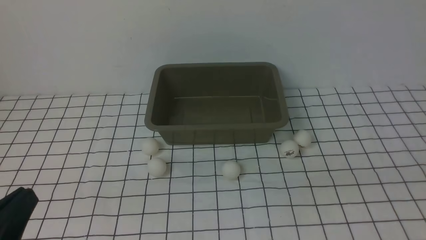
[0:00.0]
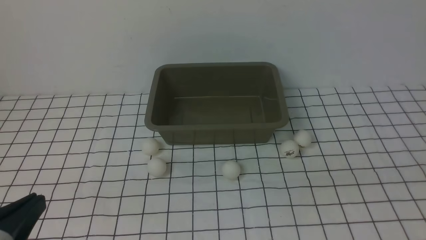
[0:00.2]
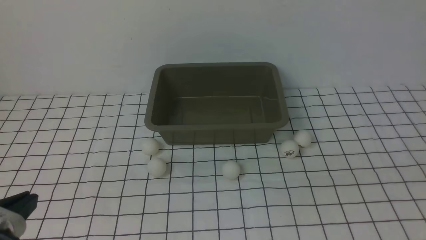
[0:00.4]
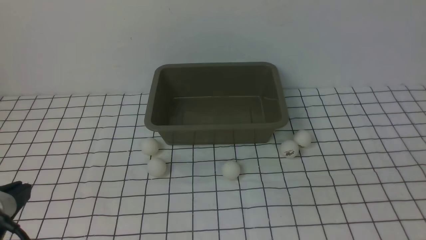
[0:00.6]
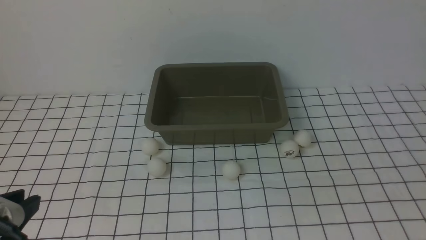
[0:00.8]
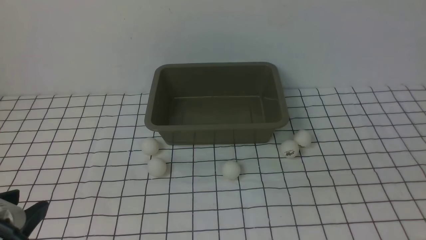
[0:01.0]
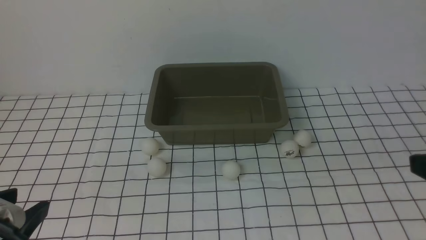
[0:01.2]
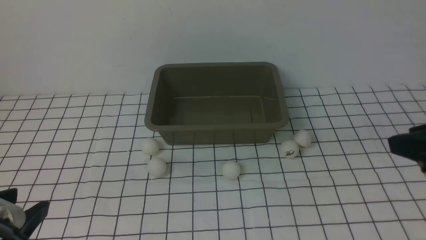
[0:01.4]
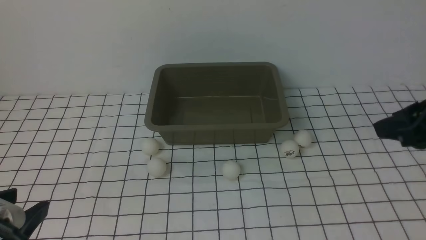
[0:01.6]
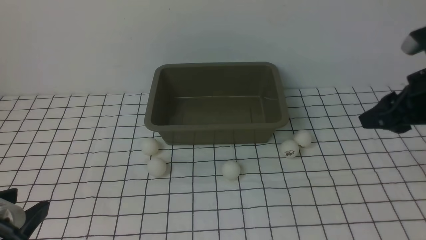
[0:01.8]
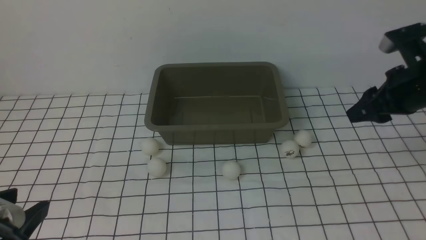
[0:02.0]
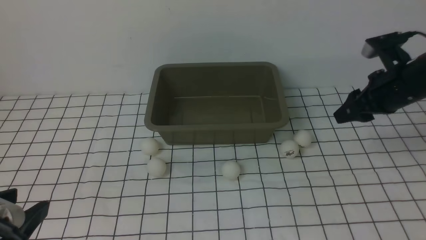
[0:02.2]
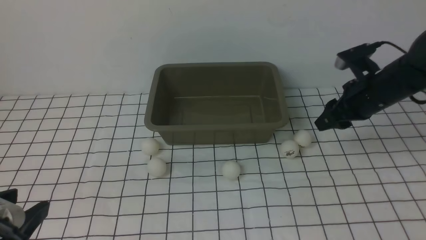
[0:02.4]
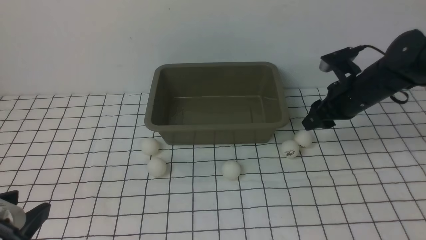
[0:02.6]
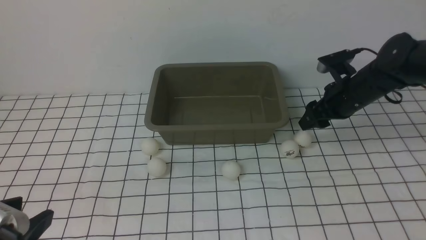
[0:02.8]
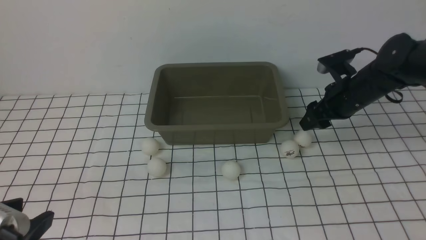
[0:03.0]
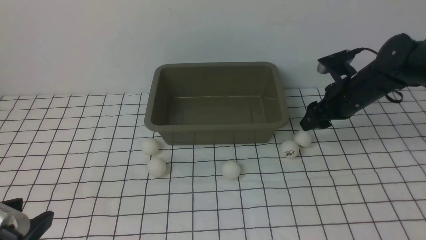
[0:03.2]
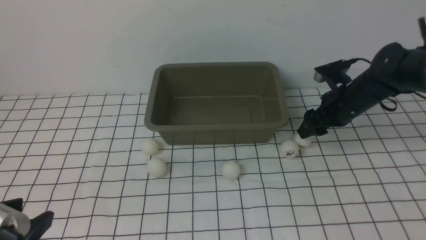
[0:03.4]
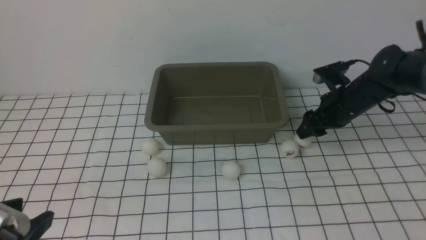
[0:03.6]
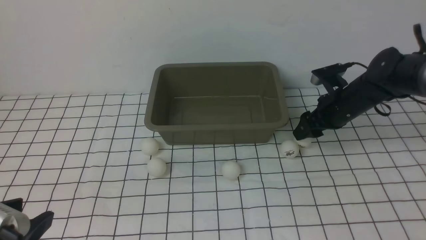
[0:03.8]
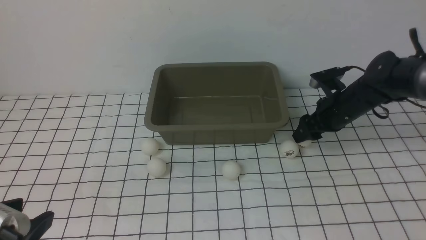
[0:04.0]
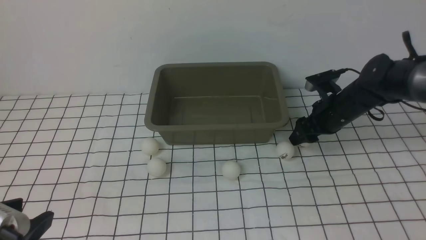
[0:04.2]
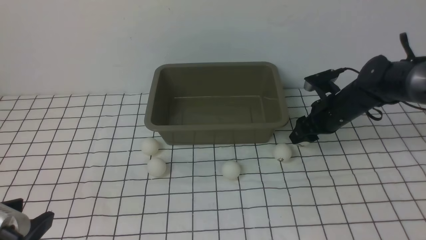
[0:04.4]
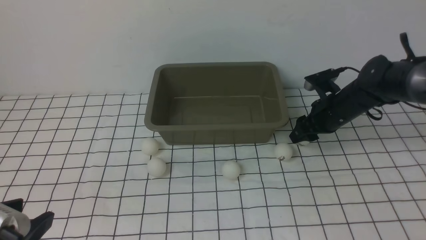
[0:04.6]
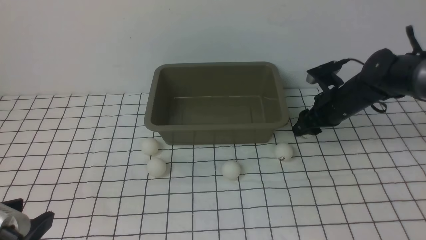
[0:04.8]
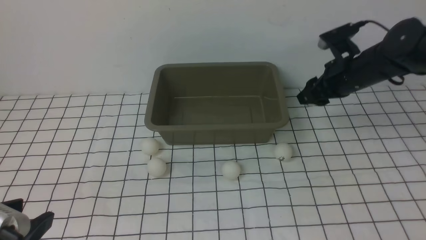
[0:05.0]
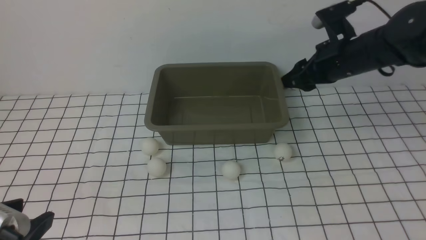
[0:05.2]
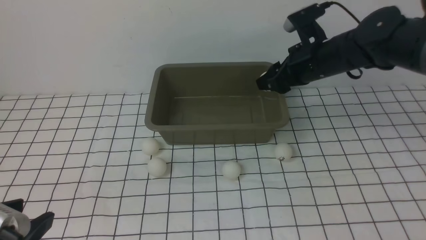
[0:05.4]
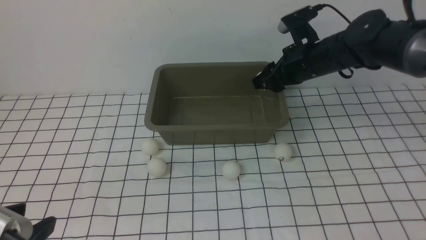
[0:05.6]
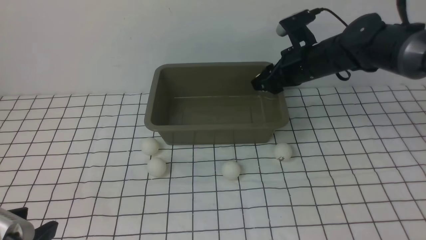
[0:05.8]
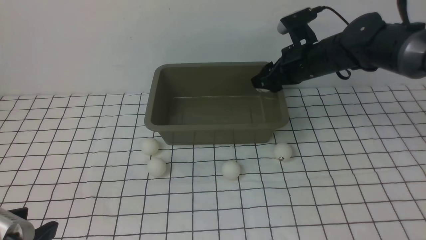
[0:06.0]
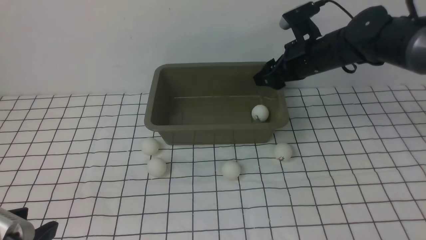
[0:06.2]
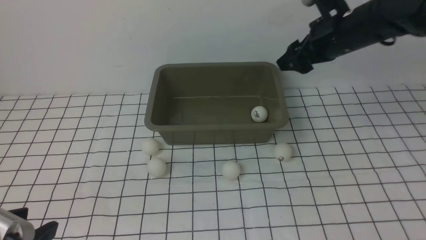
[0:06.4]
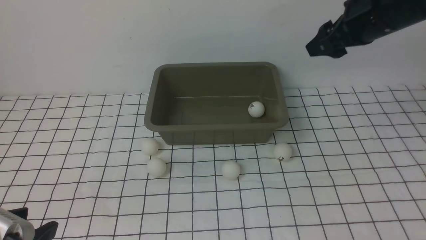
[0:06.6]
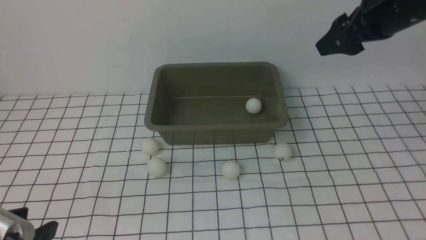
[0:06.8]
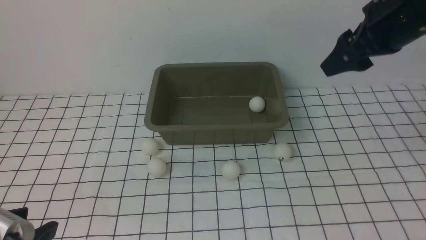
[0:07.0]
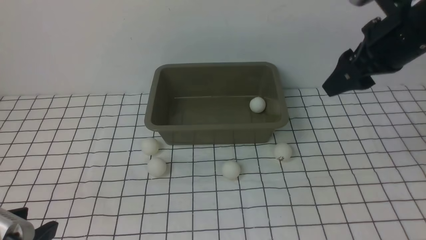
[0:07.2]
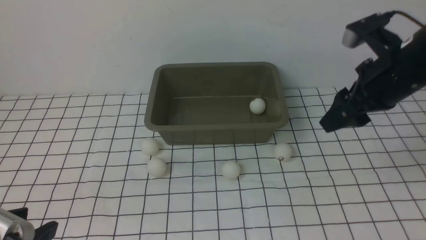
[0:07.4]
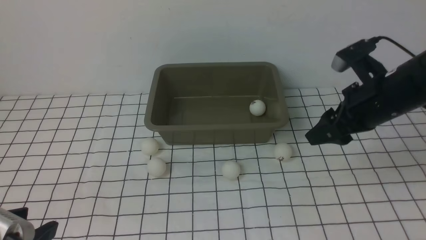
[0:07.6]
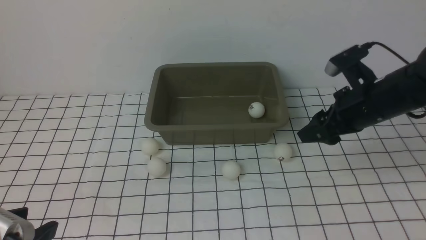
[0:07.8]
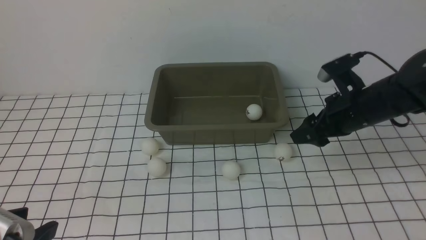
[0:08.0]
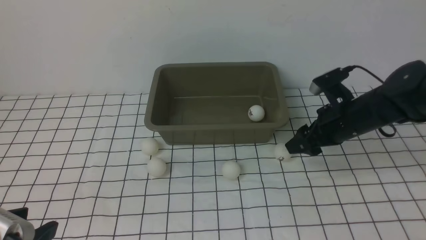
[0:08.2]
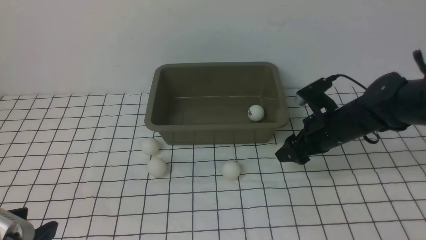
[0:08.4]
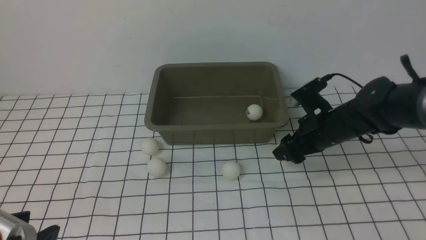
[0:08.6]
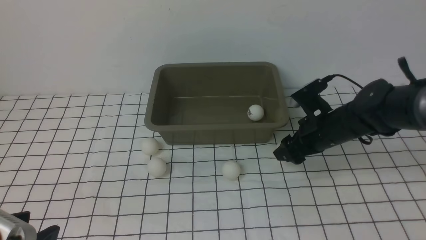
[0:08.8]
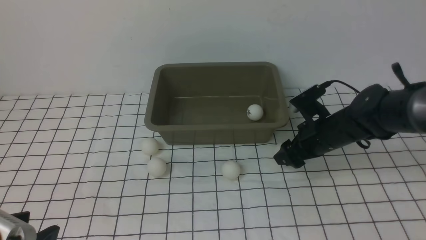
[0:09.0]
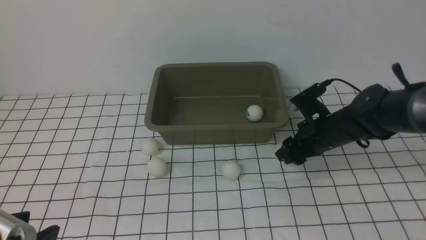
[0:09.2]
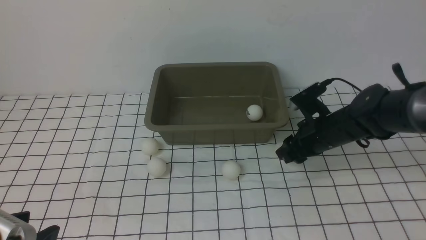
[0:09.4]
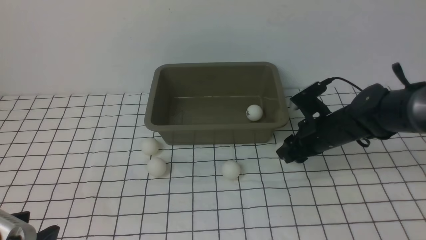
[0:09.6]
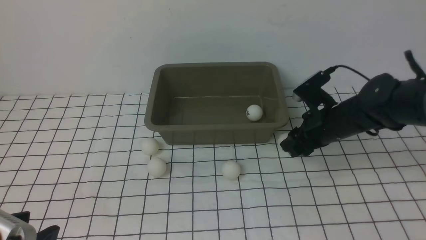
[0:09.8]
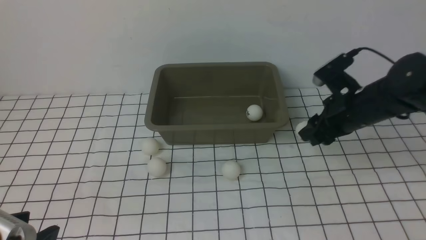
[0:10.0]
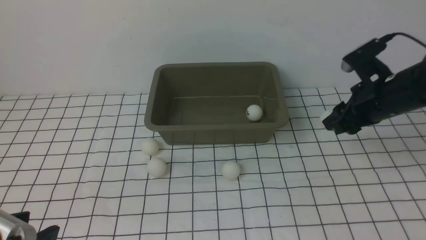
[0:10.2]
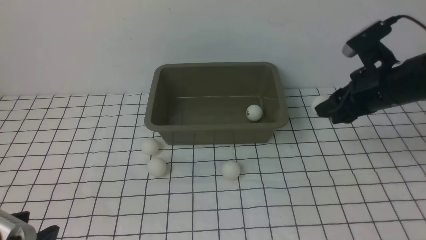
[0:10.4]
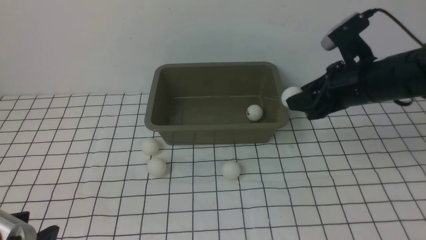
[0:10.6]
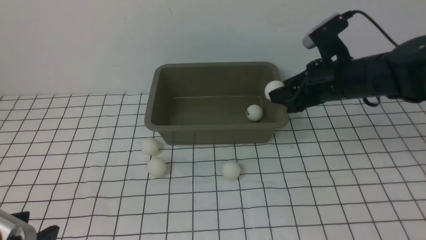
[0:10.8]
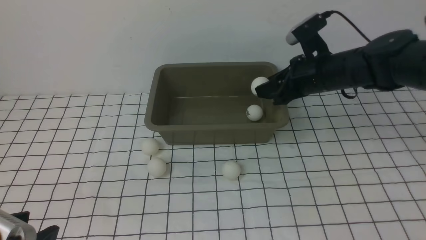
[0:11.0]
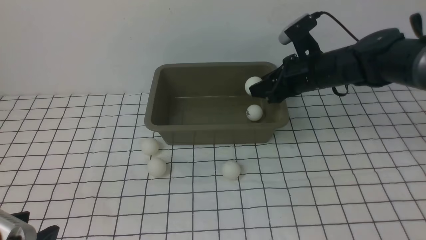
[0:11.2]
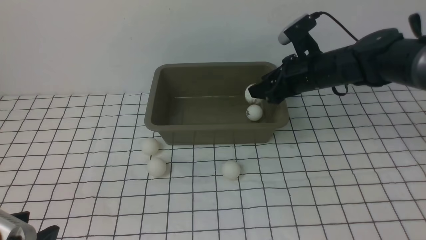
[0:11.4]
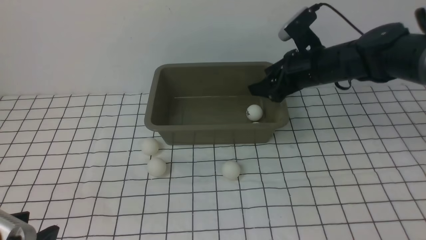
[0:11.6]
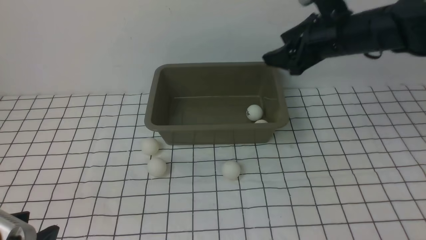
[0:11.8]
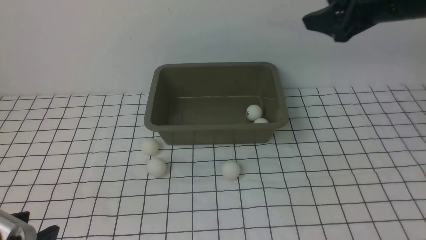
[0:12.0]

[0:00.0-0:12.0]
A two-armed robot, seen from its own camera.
Step, 0:00.0 to 0:04.8: use the right arm to clamp the table tennis ball closest to it.
Step, 0:05.2 to 0:06.2: use the right arm to put the table tennis ball into the box.
Step, 0:06.4 to 0:09.8: use the right arm to clamp the table tennis ball closest to it.
Step, 0:10.2 to 0:11.6: use the right arm to put the table tennis ball into the box.
0:00.0 to 0:01.6: The left gripper opens; the right gripper travels forward by about 30 cm, and opens up.
0:01.6 to 0:03.0: The right gripper moves forward and downward, roughly 20 cm.
0:03.0 to 0:04.4: The grippers stay close to where they were, moving slightly.
0:04.4 to 0:06.0: The right gripper heads upward and to the left, covering about 10 cm.
0:06.0 to 0:07.6: The right gripper travels backward and to the right by about 15 cm, and moves about 15 cm upward and comes back.
0:07.6 to 0:09.0: The right gripper goes some 15 cm downward.
0:09.0 to 0:10.4: The right gripper goes approximately 10 cm upward.
0:10.4 to 0:12.0: The right gripper goes roughly 10 cm upward, and opens.

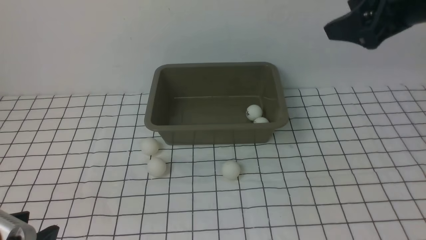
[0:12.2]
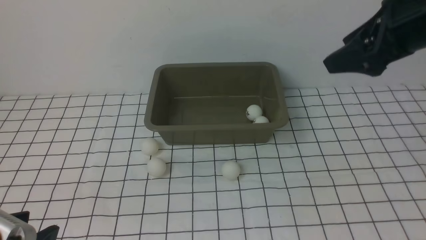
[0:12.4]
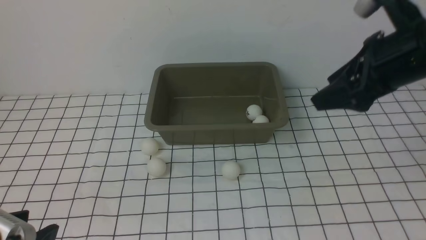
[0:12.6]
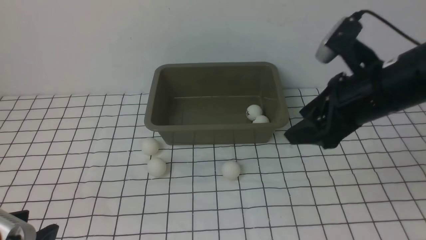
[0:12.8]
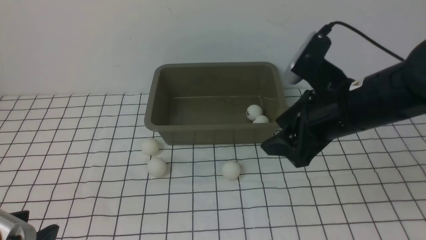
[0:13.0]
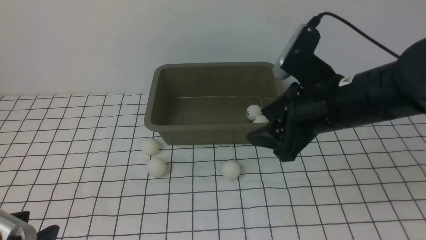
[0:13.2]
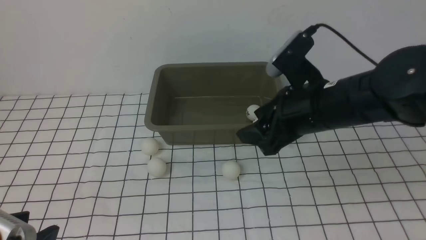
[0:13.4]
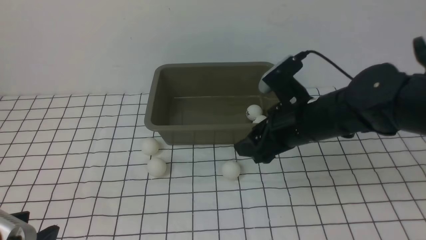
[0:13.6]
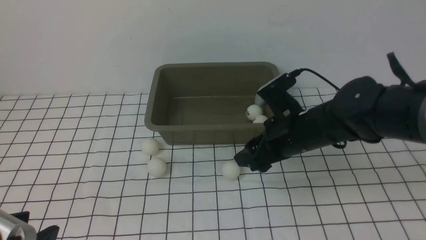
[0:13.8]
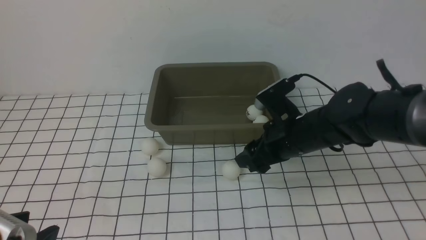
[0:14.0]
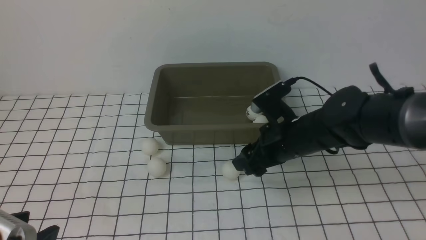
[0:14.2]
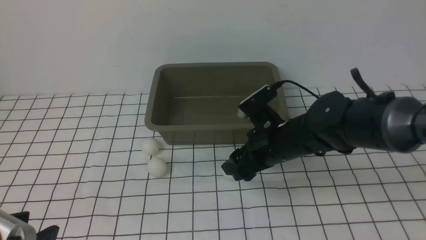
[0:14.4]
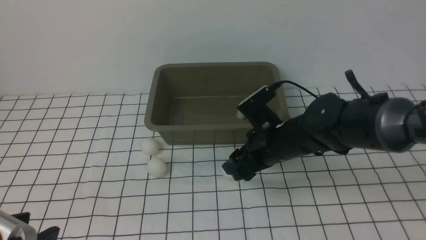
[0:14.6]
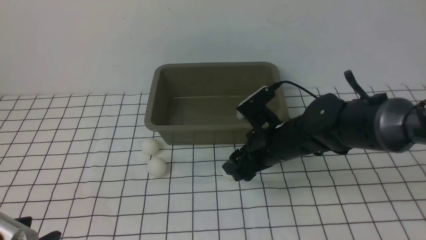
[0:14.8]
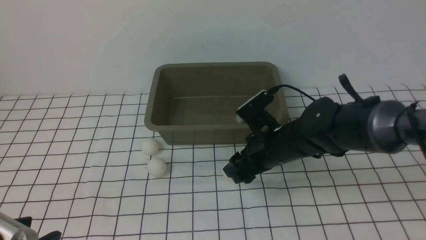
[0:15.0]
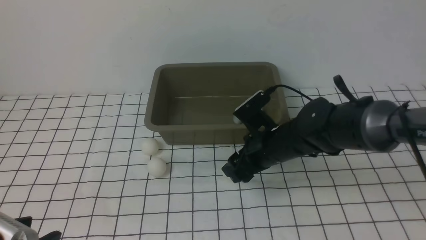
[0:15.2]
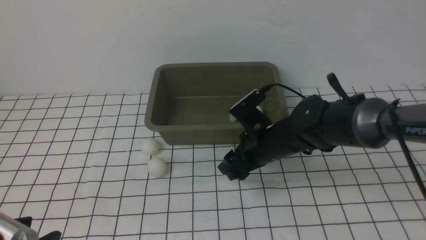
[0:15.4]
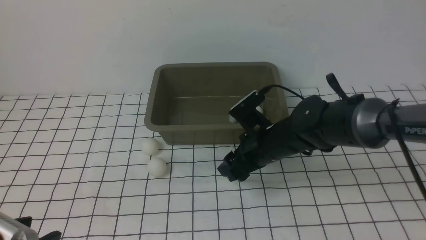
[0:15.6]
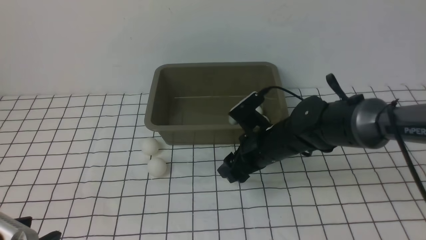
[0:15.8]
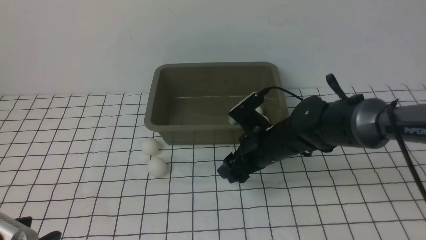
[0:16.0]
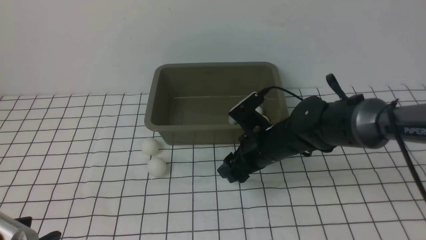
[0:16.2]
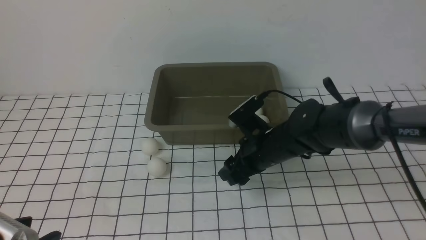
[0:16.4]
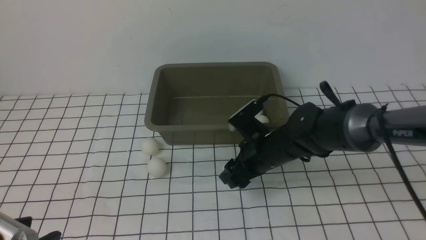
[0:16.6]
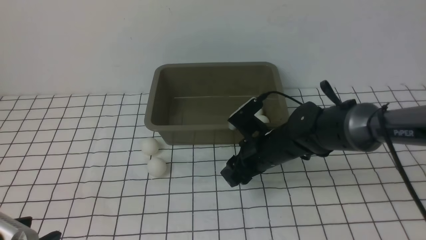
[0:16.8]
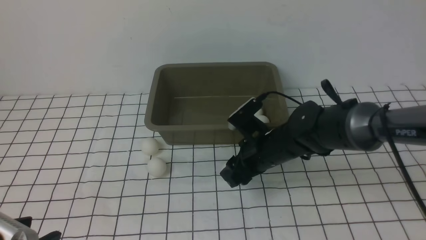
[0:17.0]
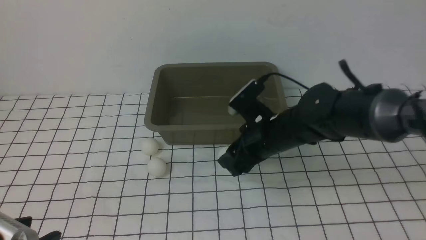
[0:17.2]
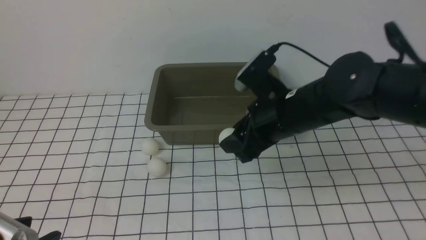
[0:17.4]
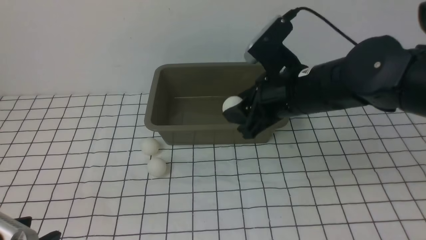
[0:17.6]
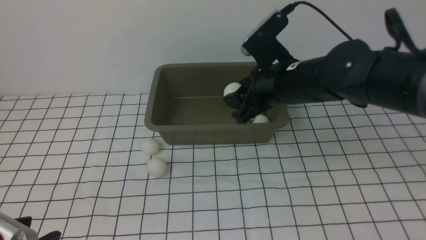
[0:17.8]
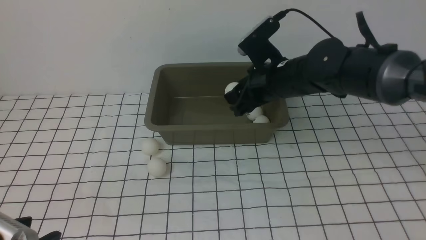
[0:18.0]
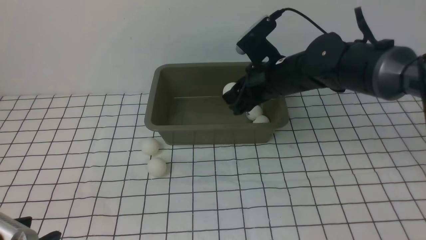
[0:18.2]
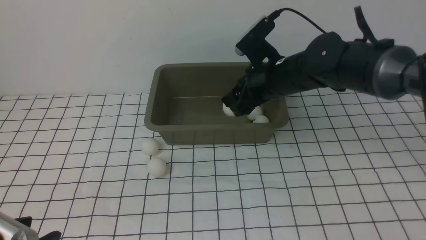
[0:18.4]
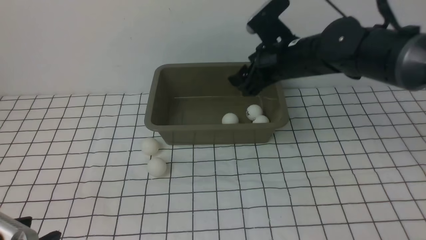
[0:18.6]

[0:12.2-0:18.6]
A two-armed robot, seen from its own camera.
Step, 0:12.2 to 0:17.2: use the right arm to clamp the table tennis ball closest to it.
Step, 0:17.6 to 0:18.4: use the right arm to put the table tennis ball into the box.
0:12.2 to 0:13.8: The right gripper is displaced downward and to the left by approximately 20 cm.
0:13.8 to 0:15.4: The right gripper heads downward, covering about 5 cm.
0:15.4 to 0:17.0: The grippers move only a little.
0:17.0 to 0:18.6: The right gripper moves upward, about 15 cm.
